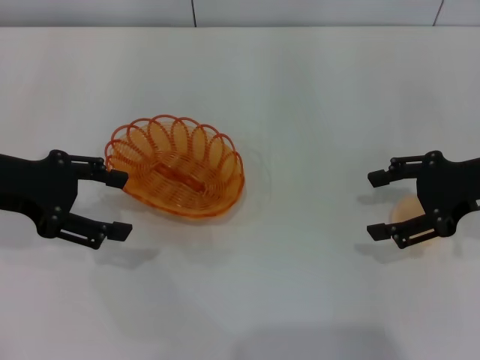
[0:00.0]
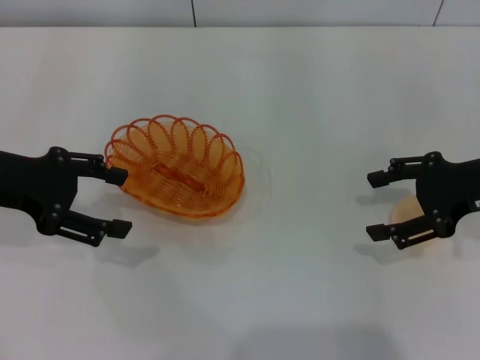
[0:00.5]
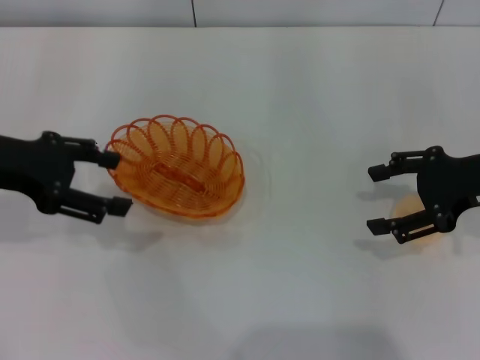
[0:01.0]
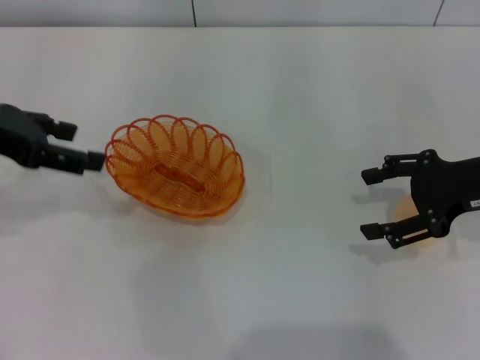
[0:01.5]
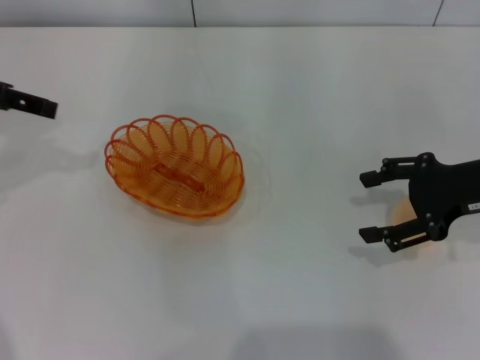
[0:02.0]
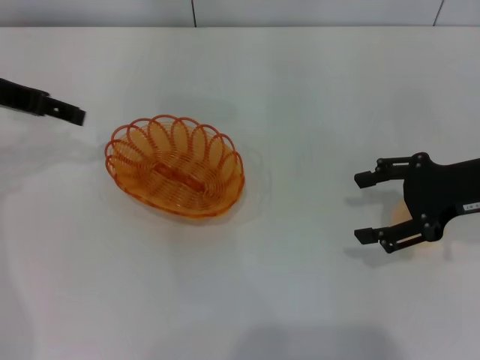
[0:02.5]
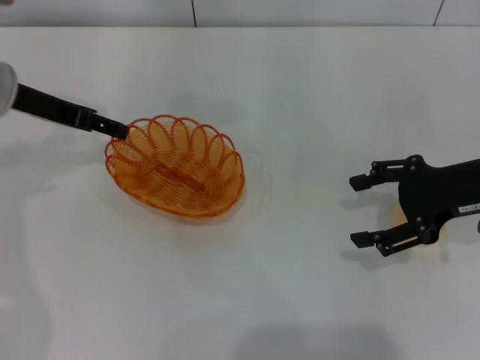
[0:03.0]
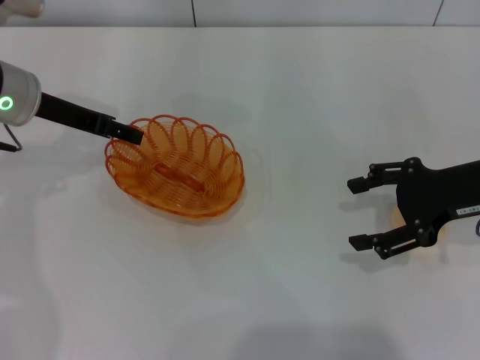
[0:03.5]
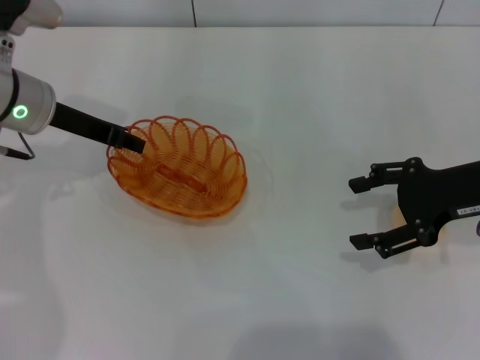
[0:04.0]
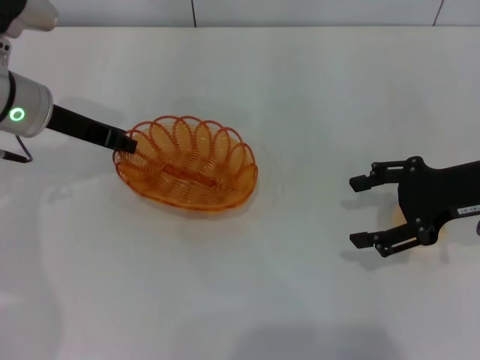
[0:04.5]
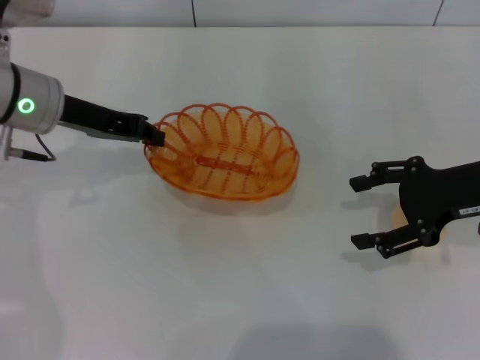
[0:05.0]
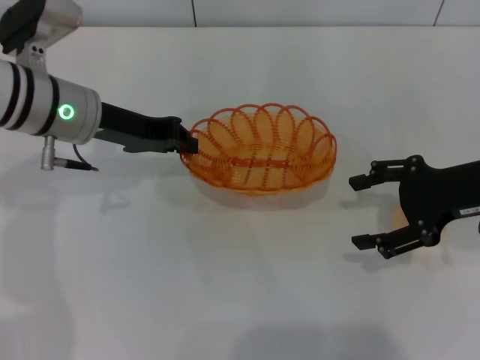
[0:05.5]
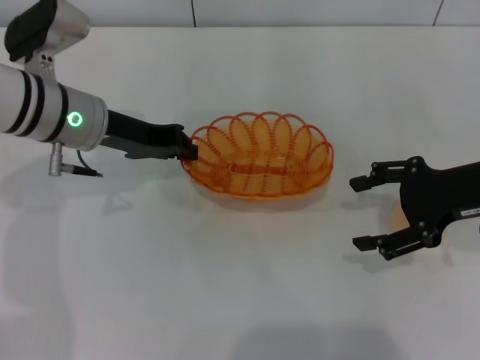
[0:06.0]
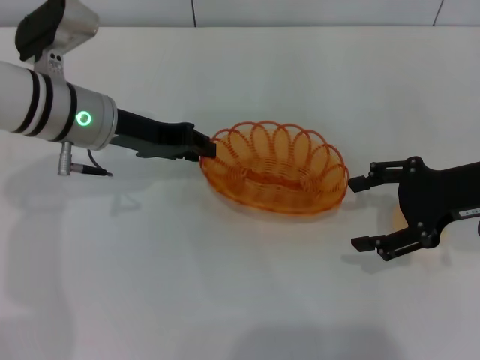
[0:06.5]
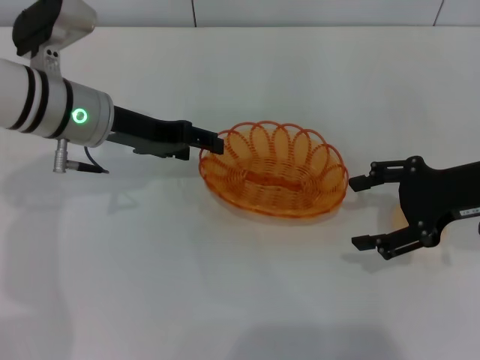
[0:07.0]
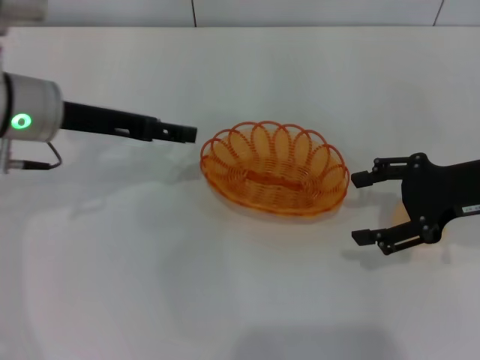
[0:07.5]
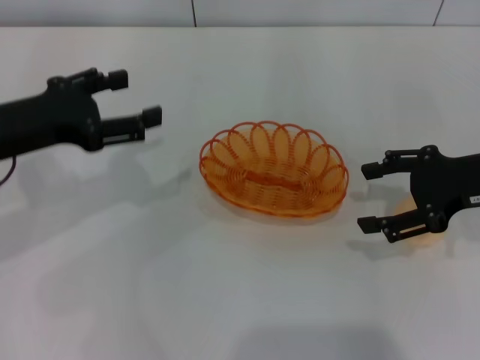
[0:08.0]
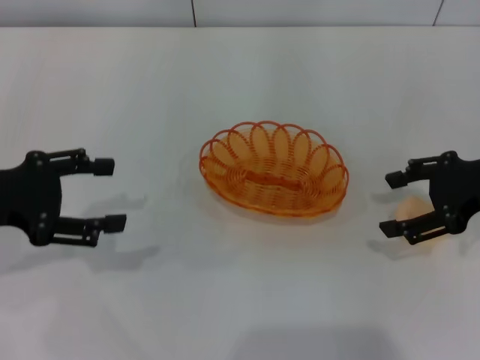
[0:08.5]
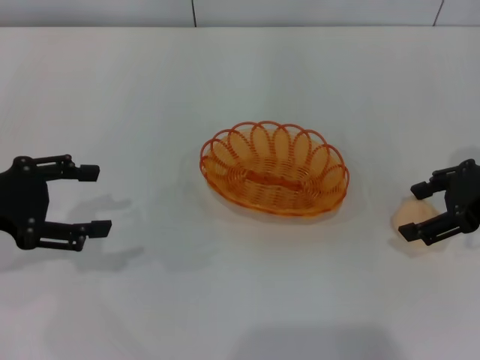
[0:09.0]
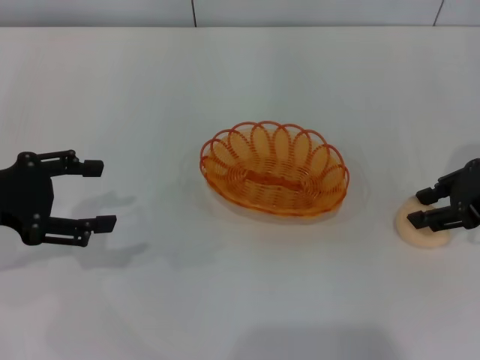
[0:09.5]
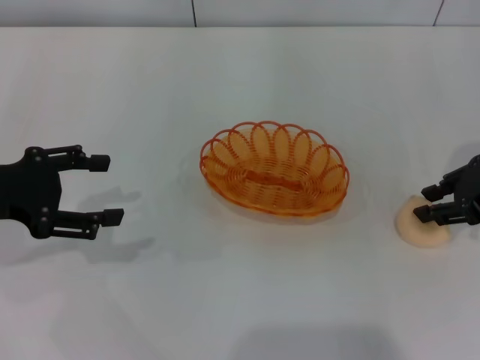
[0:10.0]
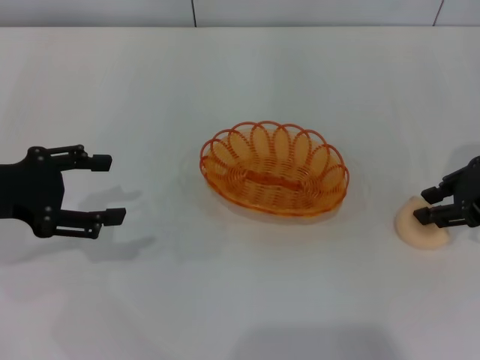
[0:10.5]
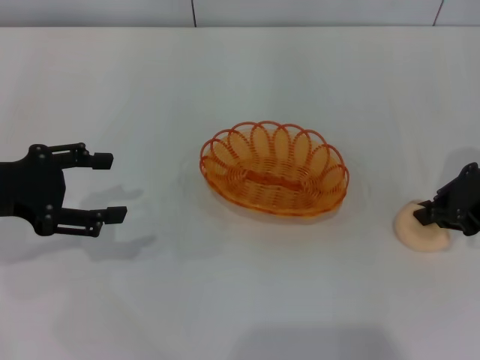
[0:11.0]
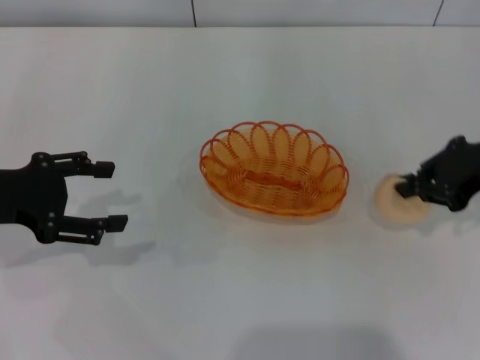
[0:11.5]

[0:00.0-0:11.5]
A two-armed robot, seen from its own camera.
Step, 0:00.0 to 0:05.0: Pick up the basket with the left gripper.
Step, 0:05.5 to 0:07.5: Place the basket in the center of view with the left gripper.
0:00.0 to 0:02.0: The left gripper goes about 10 cm upward.
0:02.0 to 0:04.0: The left gripper moves downward and to the right, about 10 cm, and closes up.
0:04.0 to 0:06.0: The left gripper closes its fingers.
0:06.0 to 0:07.5: The left gripper opens.
0:07.5 to 0:09.5: The left gripper heads to the left and backward, covering about 15 cm.
0:09.5 to 0:11.5: The right gripper closes up.

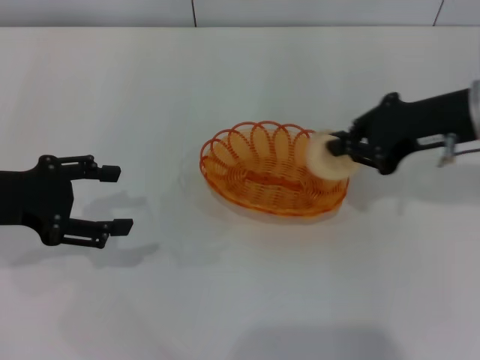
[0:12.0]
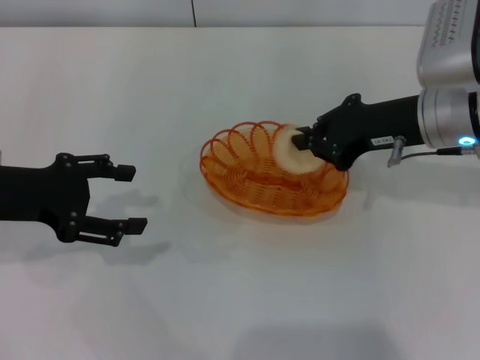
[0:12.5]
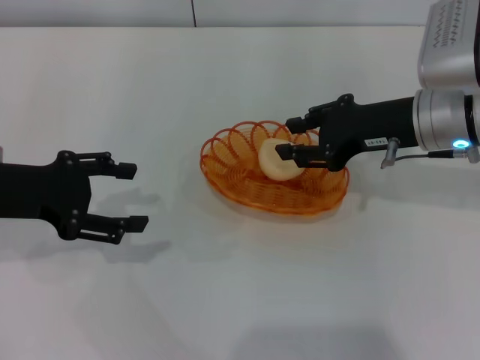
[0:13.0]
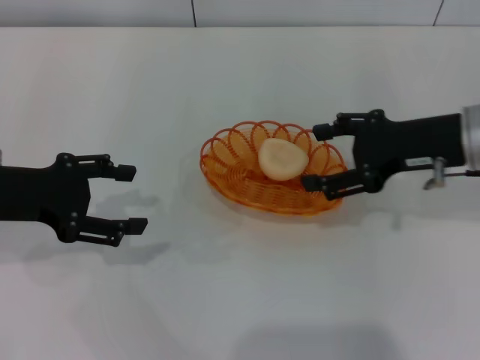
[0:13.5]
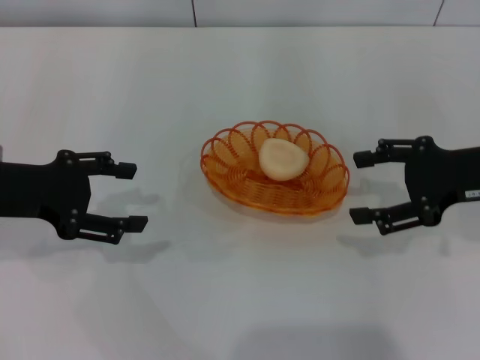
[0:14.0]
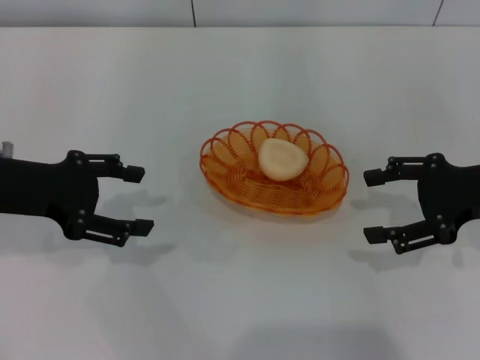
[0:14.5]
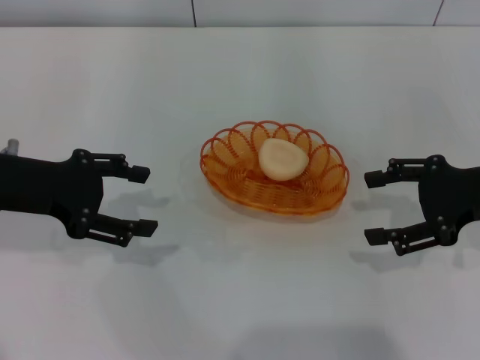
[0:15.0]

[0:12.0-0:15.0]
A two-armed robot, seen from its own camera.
Step, 0:12.0 to 0:13.5: Place the egg yolk pastry into the basket with the right gripper.
0:12.0 to 0:13.5: The right gripper opens up.
0:13.5 to 0:15.0: The right gripper shifts about 5 cm to the right.

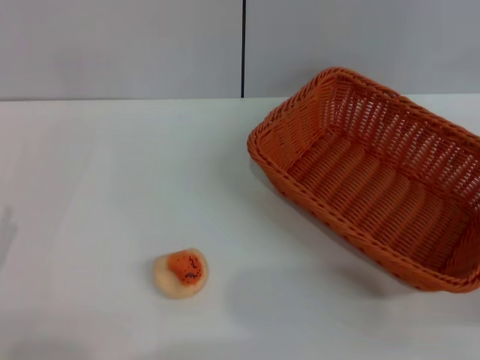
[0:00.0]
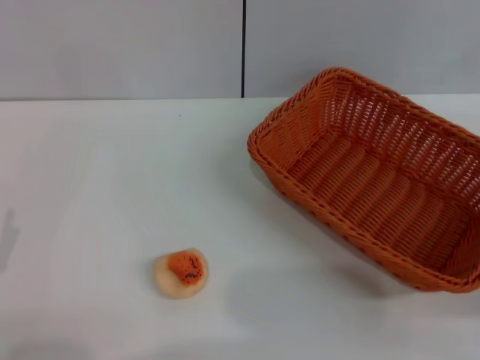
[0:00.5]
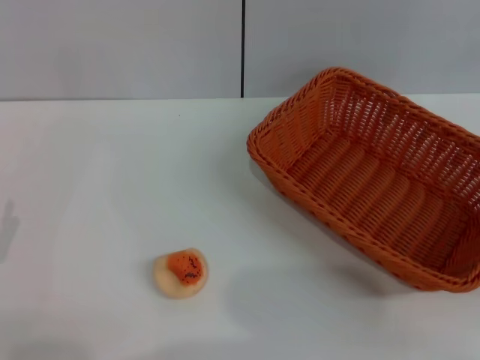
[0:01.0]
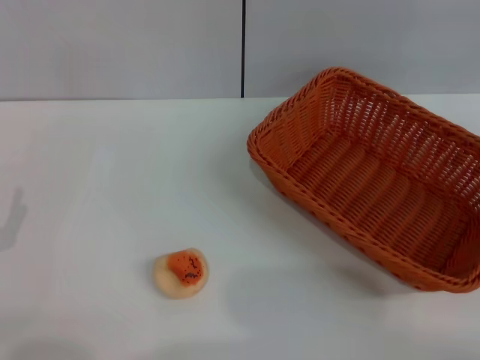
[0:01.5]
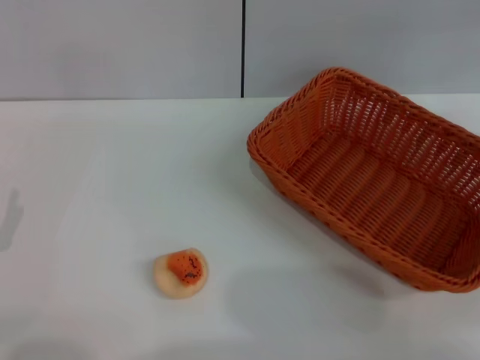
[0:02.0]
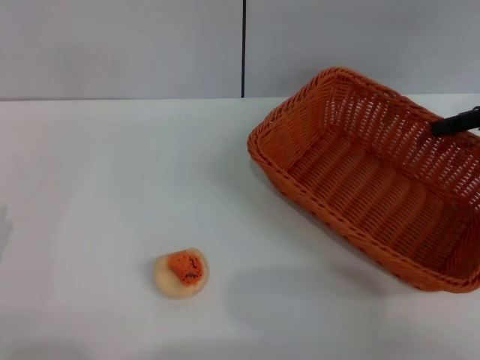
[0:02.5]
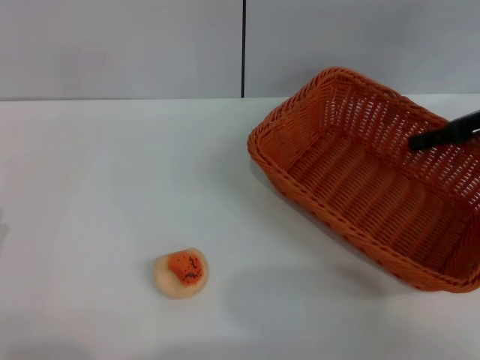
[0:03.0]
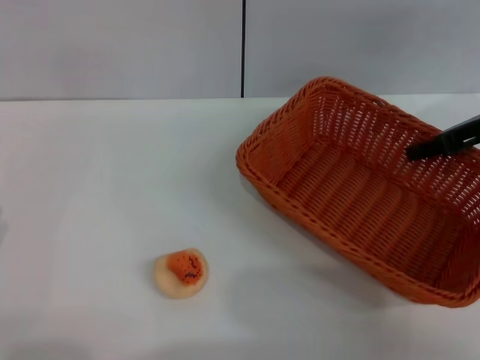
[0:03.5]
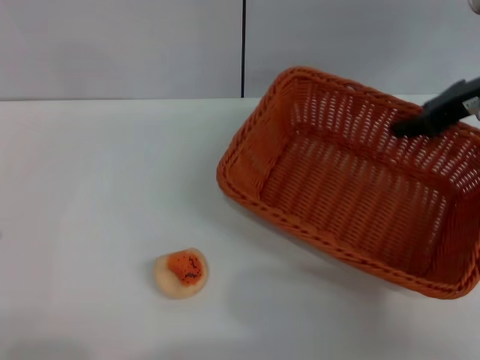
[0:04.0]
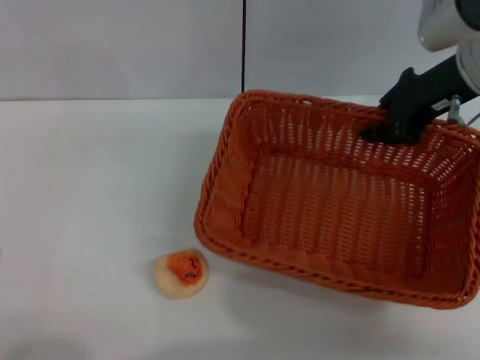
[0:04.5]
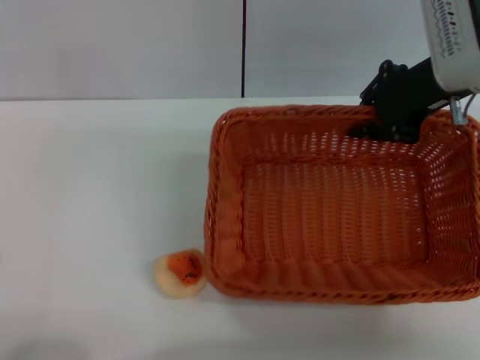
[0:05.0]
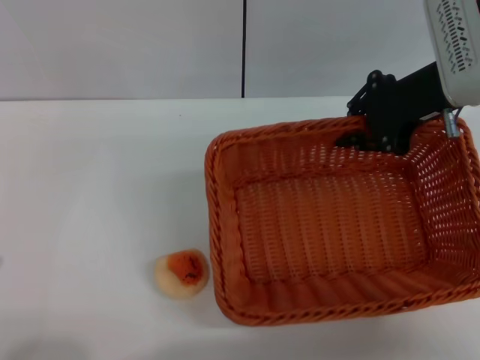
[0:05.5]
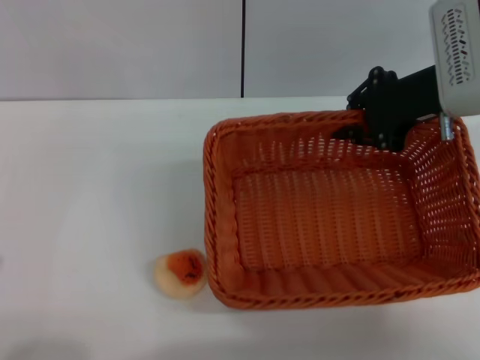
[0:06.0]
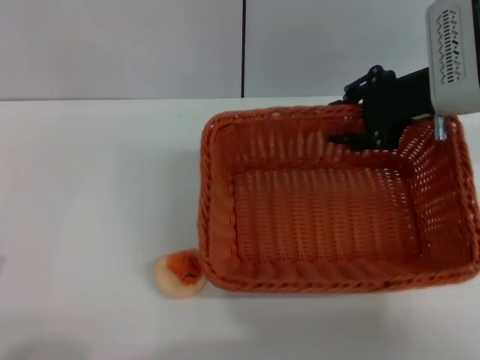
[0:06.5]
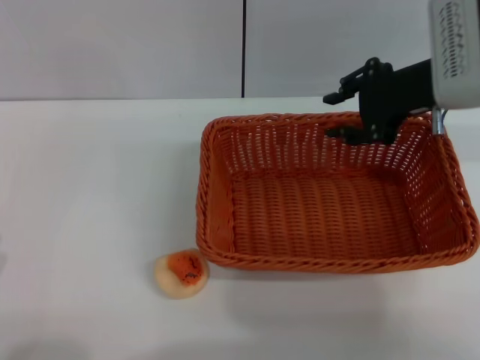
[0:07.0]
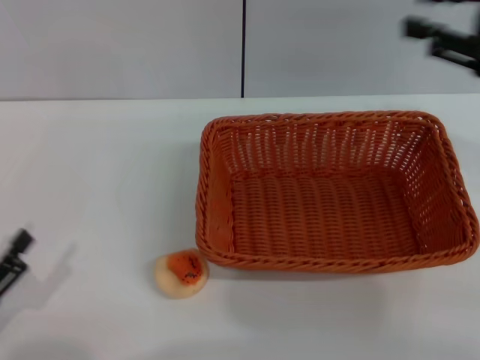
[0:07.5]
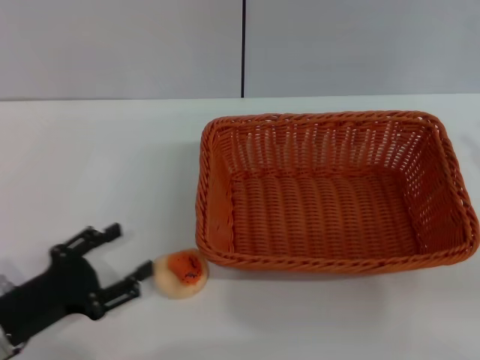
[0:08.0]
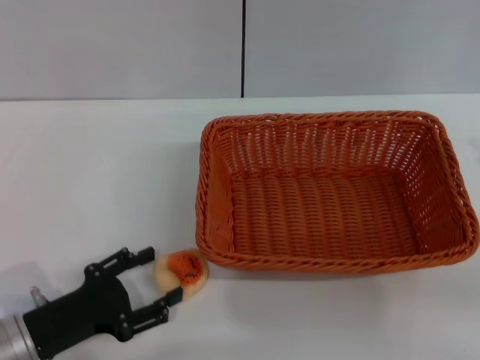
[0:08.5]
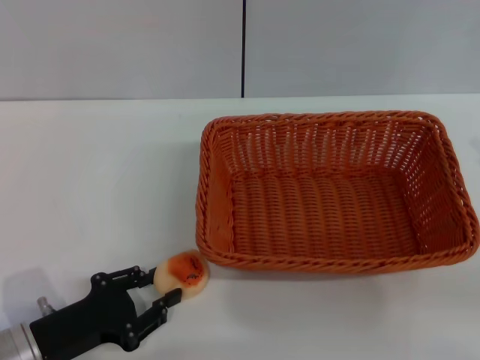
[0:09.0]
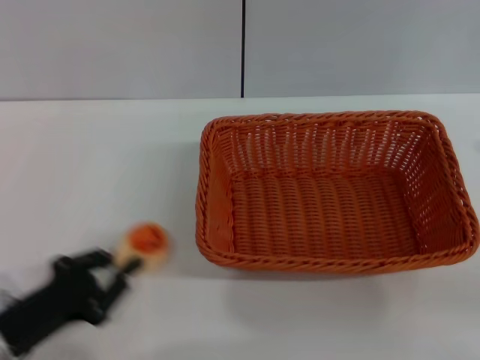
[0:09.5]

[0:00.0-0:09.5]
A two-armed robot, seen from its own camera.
Step, 0:00.0 to 0:07.0: Move the basket to the center of view with the right gripper.
0:02.0 to 0:04.0: The right gripper is displaced to the left by some 10 cm, and closes up.
0:04.0 to 0:05.5: The right gripper moves roughly 5 cm.
0:05.5 to 0:07.5: The right gripper moves to the right and backward, some 10 cm, and opens.
0:07.5 to 0:09.5: The right gripper goes approximately 15 cm backward, to the right and downward. The left gripper travels to the right by some 5 cm, and closes up.

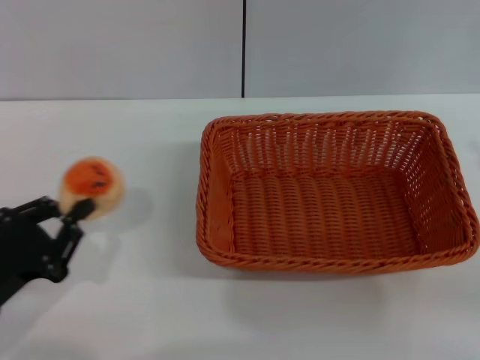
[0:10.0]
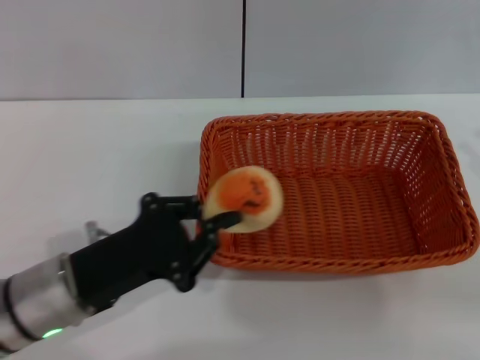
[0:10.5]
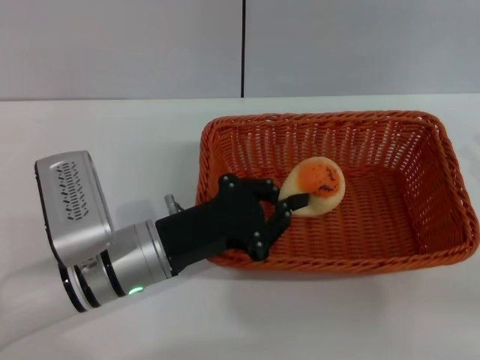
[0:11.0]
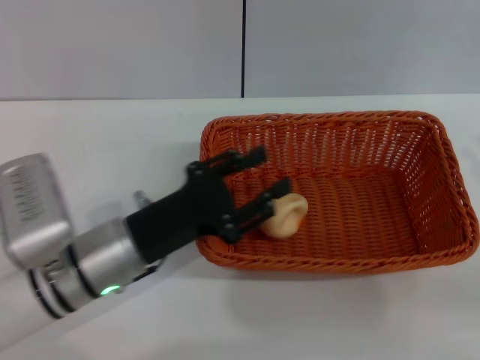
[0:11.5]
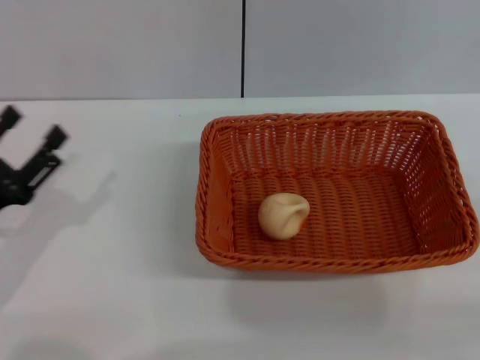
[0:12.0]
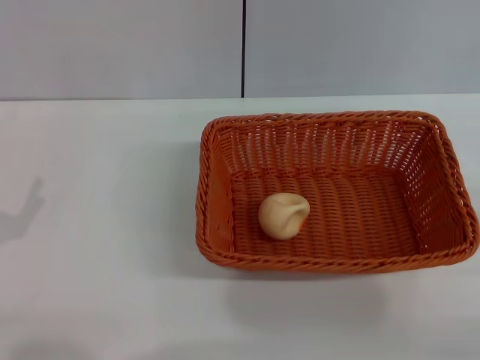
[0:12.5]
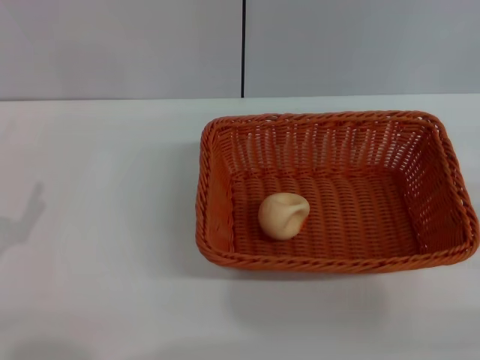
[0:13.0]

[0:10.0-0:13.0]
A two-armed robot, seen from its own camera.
Step, 0:10.5 to 0:11.5: Place the egg yolk pastry into the basket with the left gripper.
0:10.0 to 0:11.5: The left gripper moves to the right and forward, approximately 15 cm.
0:11.5 to 0:13.0: The right gripper shifts roughly 10 cm downward, while the left gripper goes about 20 cm to the left and backward, and opens.
